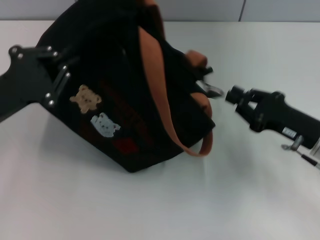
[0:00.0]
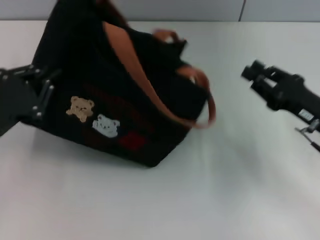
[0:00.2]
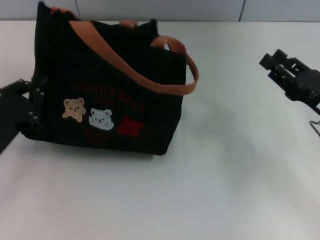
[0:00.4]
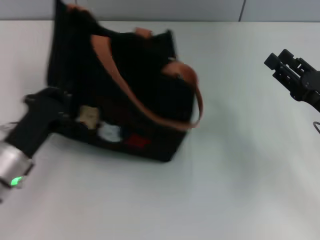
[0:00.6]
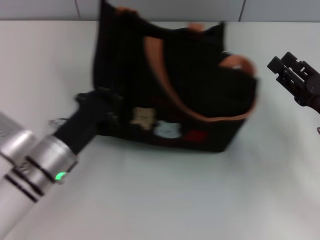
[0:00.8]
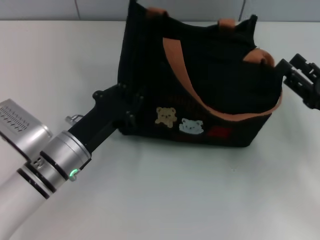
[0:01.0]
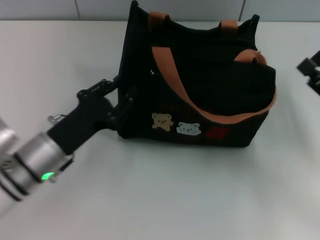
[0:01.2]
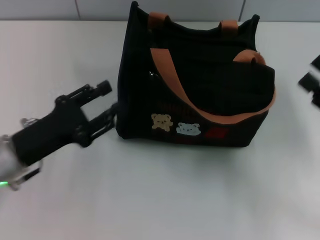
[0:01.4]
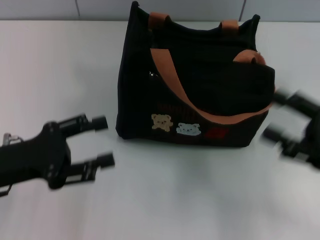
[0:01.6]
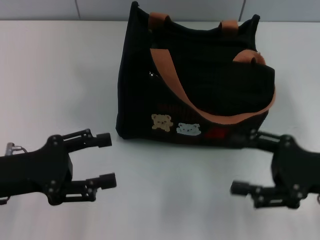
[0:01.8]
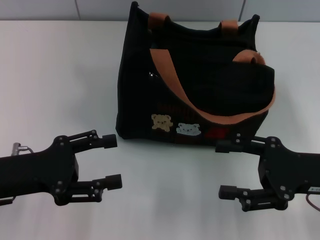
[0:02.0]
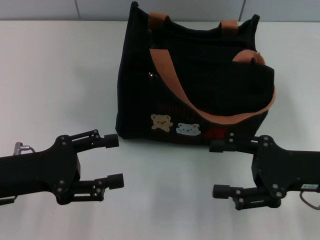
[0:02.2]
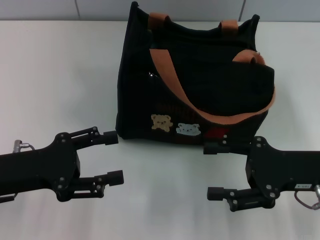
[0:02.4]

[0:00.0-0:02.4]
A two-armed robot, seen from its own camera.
Step, 0:00.2 to 0:01.2: Grab the bag with your left hand.
0:00.0 to 0:01.2: The right gripper heads to the right, covering roughly 5 cm, and opens up. The left gripper travels to the right and downward by approximately 10 cm.
0:01.2 to 0:02.4: The right gripper shifts some 5 cm to the left. The left gripper goes approximately 10 cm to the left and upward, and opens up.

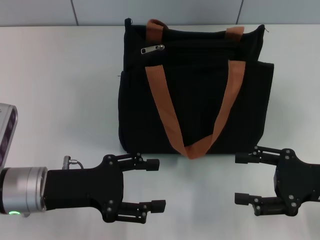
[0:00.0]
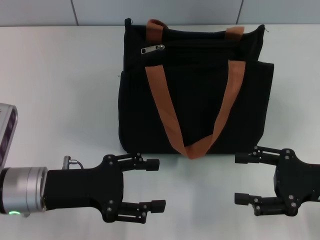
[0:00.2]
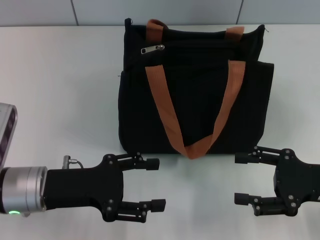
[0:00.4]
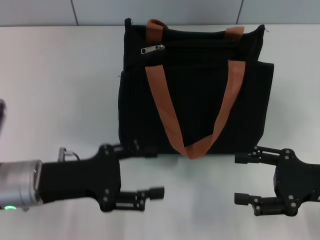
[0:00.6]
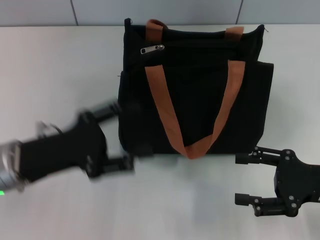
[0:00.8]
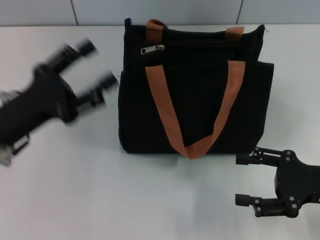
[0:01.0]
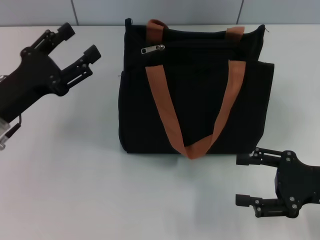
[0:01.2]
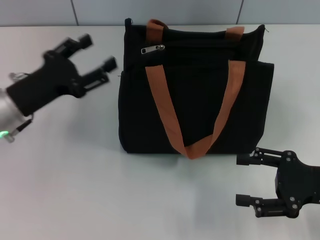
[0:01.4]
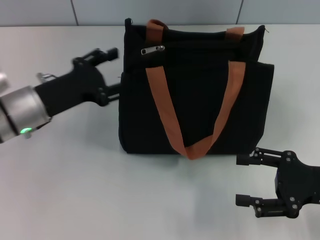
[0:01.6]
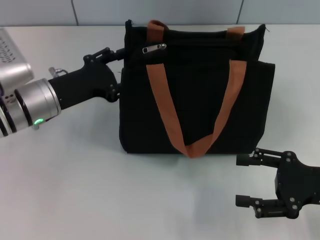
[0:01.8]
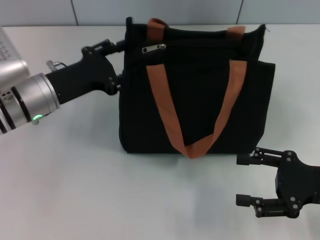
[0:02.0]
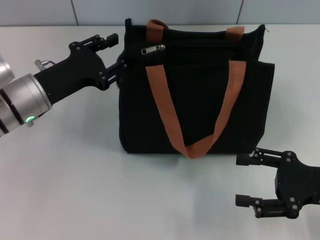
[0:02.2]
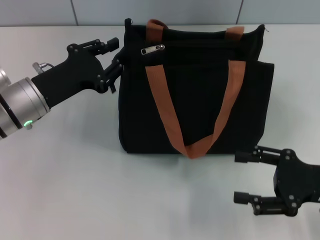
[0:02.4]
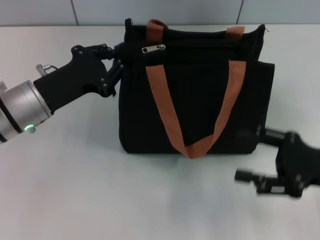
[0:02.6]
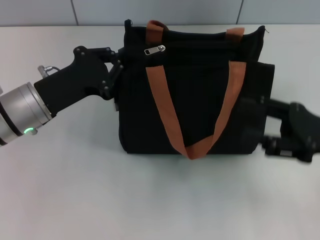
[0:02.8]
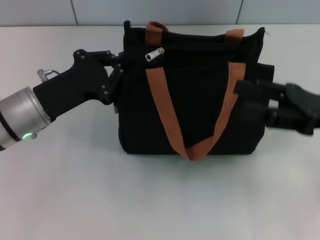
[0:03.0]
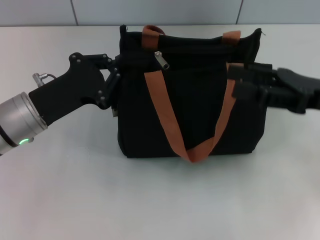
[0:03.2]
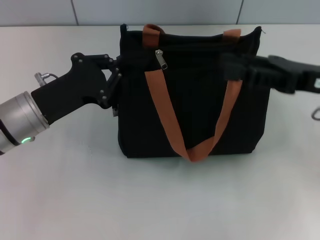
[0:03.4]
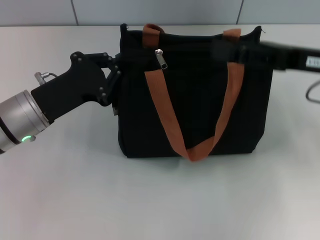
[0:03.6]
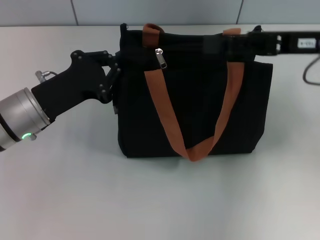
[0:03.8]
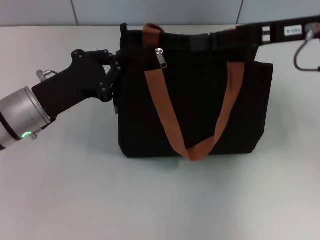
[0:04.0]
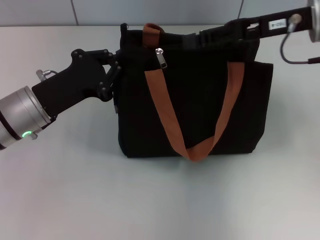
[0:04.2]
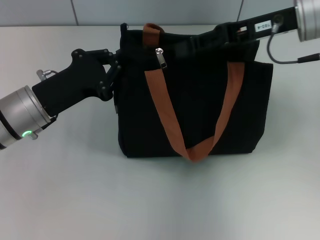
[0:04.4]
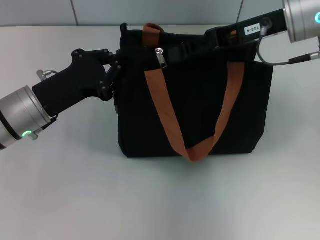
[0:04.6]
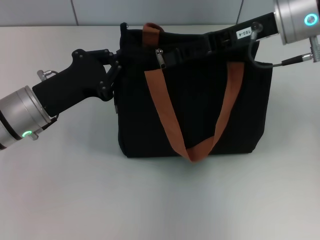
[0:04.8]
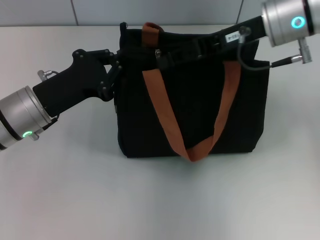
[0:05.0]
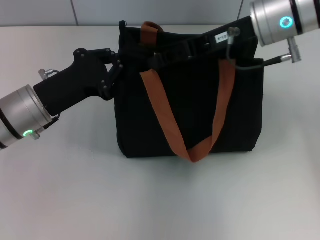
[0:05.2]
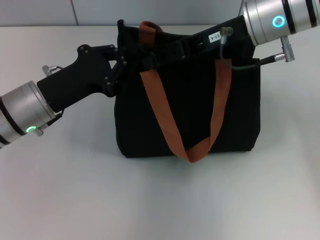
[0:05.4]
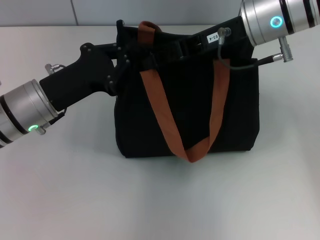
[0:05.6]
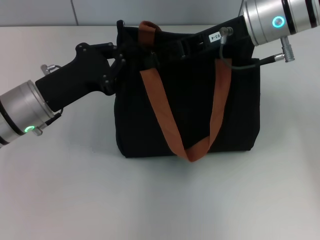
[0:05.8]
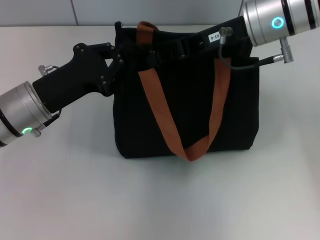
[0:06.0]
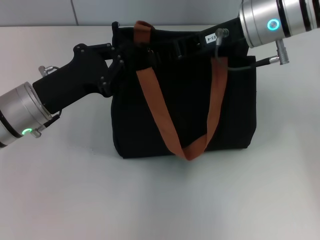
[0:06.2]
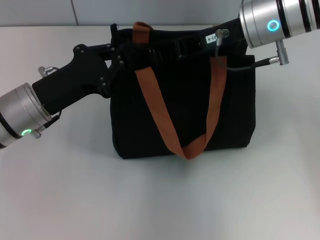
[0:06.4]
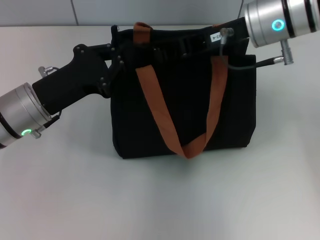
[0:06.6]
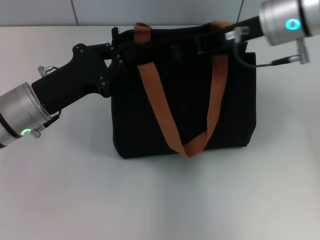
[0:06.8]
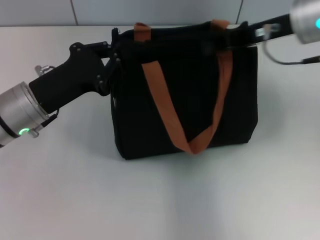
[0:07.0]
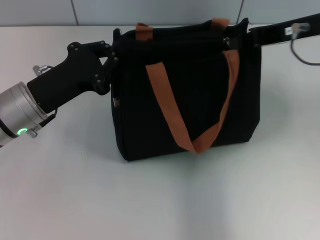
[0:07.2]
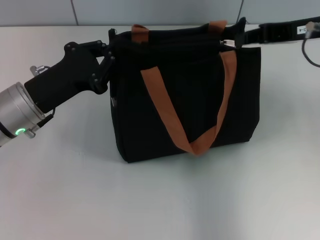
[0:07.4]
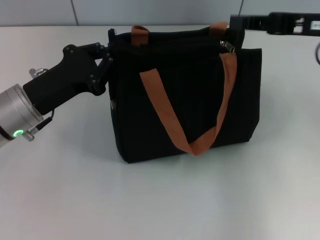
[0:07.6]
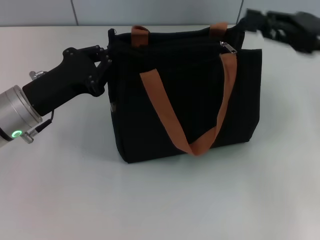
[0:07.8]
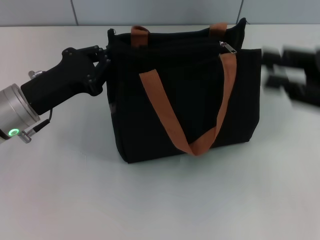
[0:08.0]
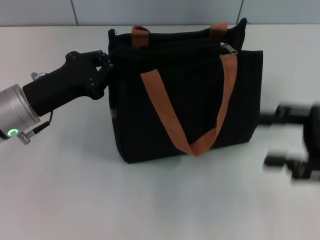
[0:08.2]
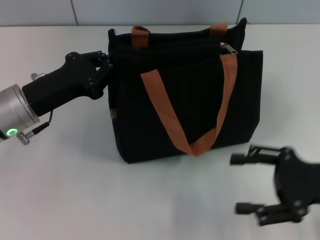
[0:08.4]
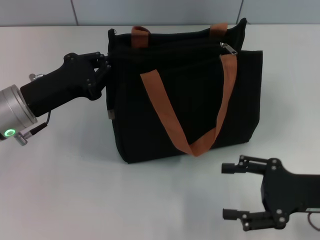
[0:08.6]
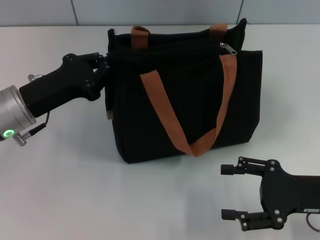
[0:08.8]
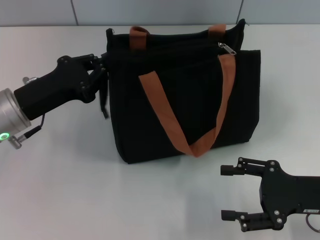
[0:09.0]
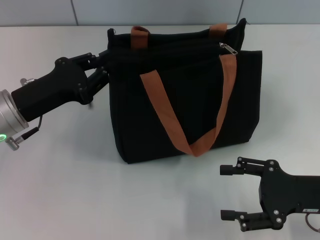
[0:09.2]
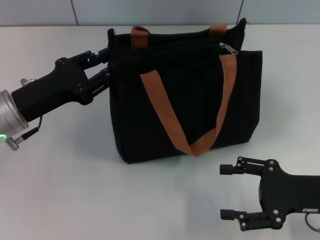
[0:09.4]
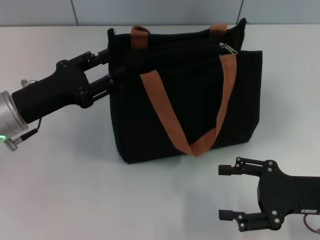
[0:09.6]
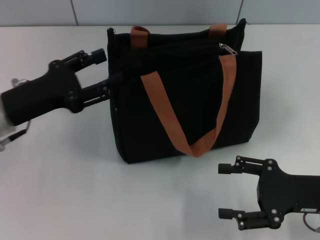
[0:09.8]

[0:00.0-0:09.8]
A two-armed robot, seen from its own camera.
Step, 0:00.0 to 0:07.6: Pull up the zipper with your right hand.
Step, 0:08.0 to 0:09.8: Grab the zipper with your left hand.
0:00.0 to 0:01.4: The left gripper shifts about 5 cm forward.
0:01.4 to 0:02.8: The left gripper closes. Meanwhile the right gripper changes place by approximately 5 cm.
0:02.8 to 0:04.2: The right gripper goes approximately 20 cm forward, upward and to the left.
0:04.2 to 0:05.6: The right gripper travels to the left by roughly 5 cm, and closes its fingers.
0:05.6 to 0:07.0: The right gripper heads to the right, covering about 5 cm, and closes up.
0:07.0 to 0:08.4: The right gripper is displaced backward, downward and to the right by about 20 cm, and opens its fingers.
0:08.4 to 0:09.8: The left gripper opens its fingers.

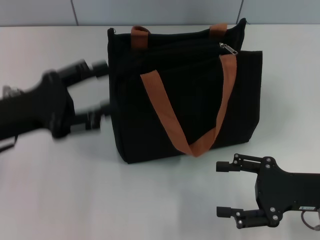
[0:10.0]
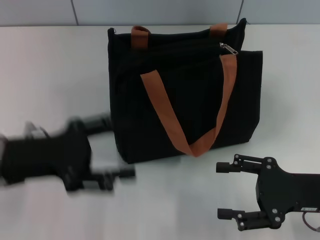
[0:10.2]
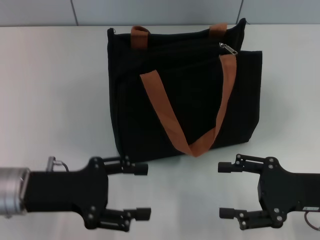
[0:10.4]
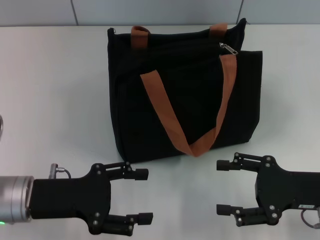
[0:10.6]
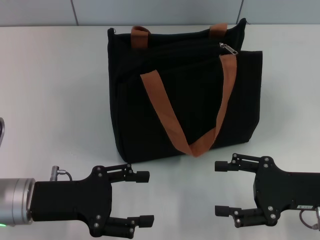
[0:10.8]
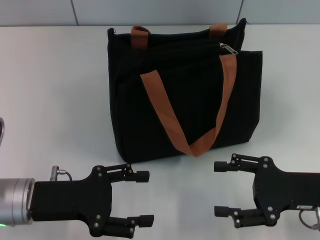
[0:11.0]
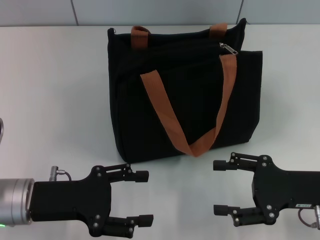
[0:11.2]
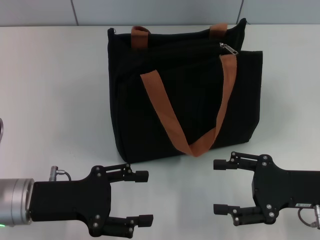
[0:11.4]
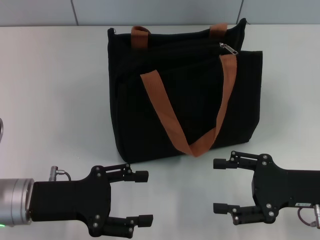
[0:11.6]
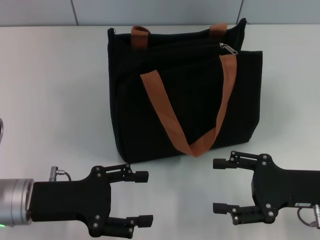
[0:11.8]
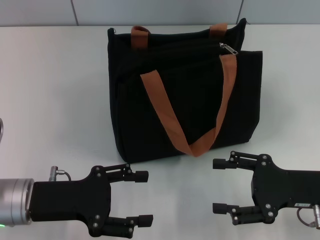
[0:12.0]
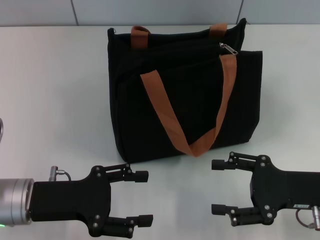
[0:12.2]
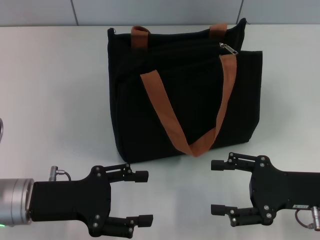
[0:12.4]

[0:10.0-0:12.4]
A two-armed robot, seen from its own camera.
0:10.0 to 0:11.2: The left gripper goes roughly 5 cm downward.
0:11.2 to 0:12.4: Neither gripper changes place.

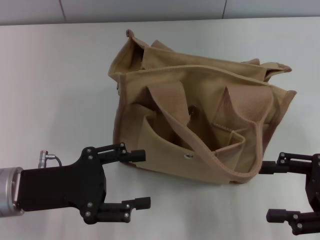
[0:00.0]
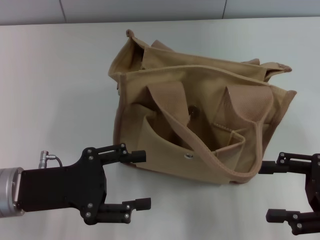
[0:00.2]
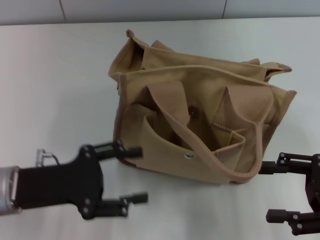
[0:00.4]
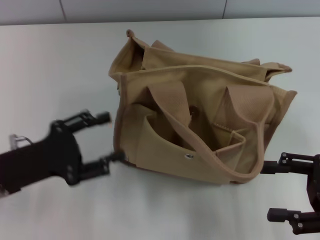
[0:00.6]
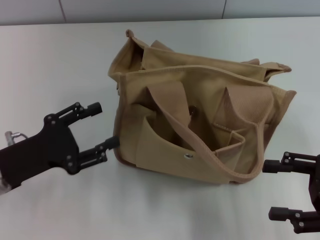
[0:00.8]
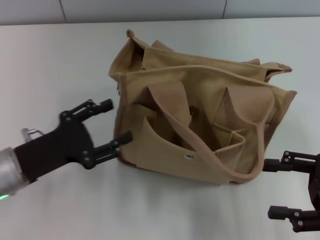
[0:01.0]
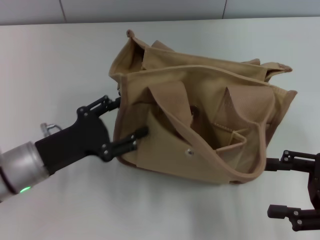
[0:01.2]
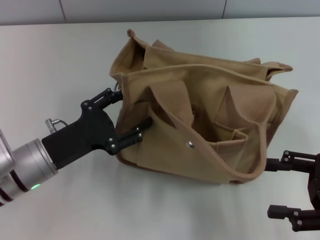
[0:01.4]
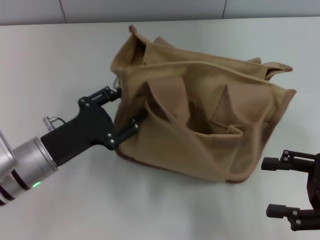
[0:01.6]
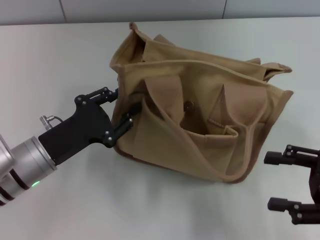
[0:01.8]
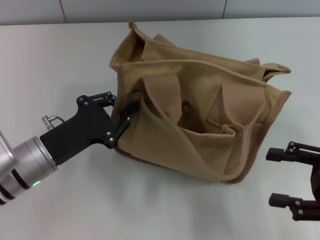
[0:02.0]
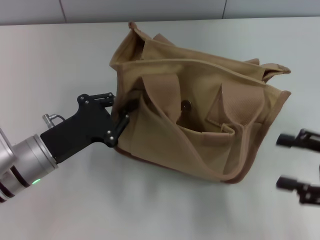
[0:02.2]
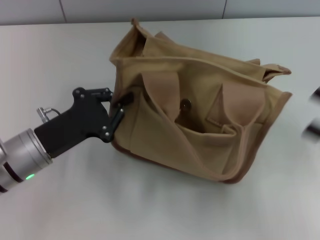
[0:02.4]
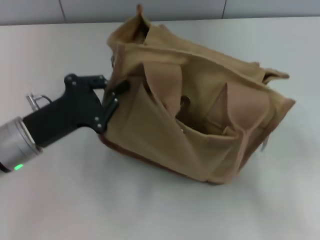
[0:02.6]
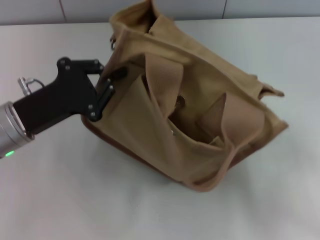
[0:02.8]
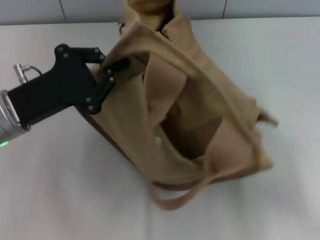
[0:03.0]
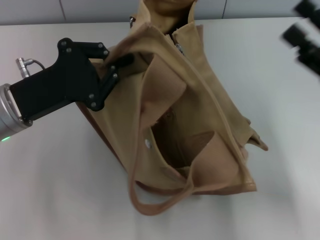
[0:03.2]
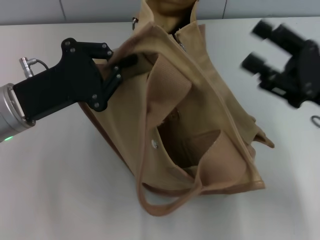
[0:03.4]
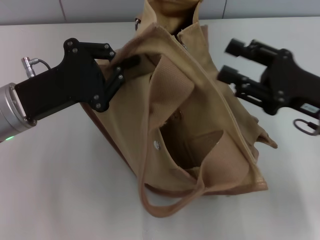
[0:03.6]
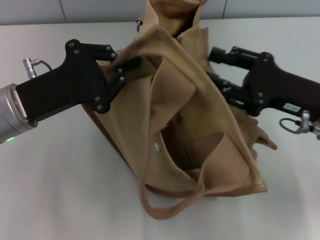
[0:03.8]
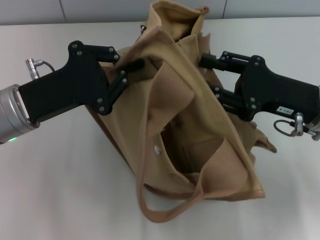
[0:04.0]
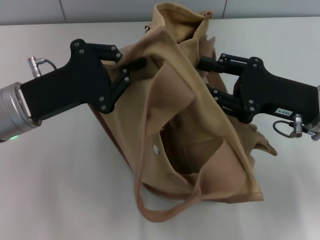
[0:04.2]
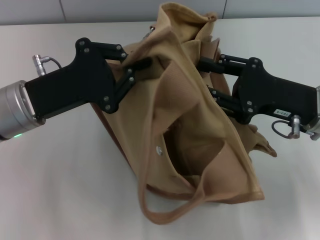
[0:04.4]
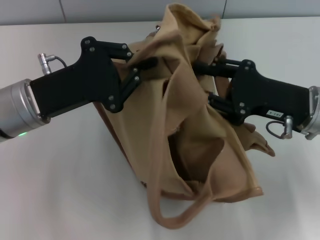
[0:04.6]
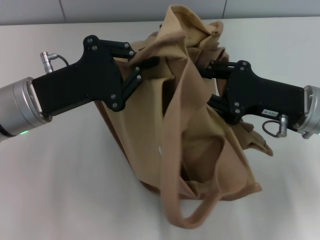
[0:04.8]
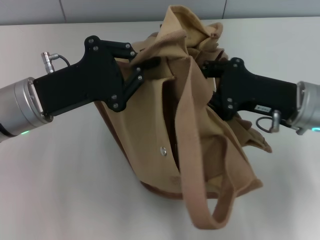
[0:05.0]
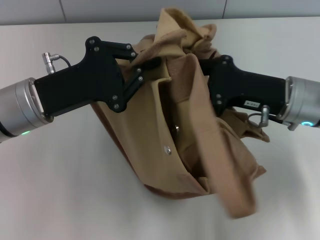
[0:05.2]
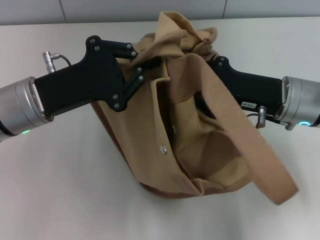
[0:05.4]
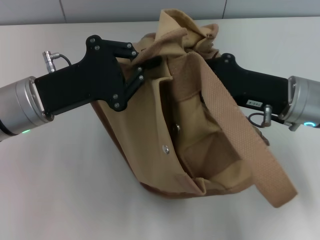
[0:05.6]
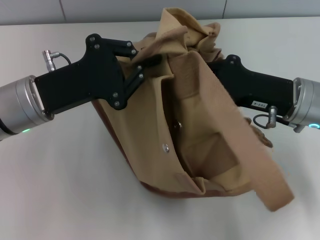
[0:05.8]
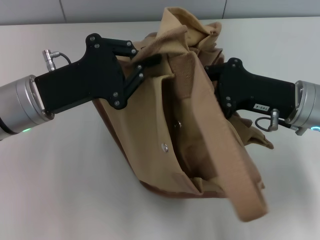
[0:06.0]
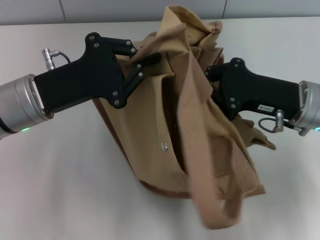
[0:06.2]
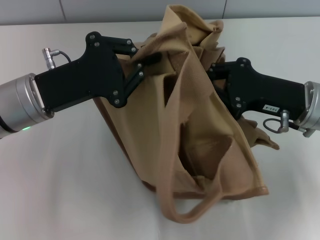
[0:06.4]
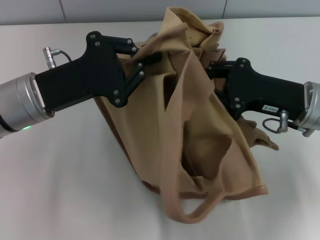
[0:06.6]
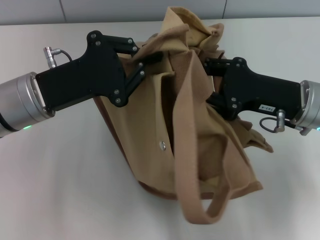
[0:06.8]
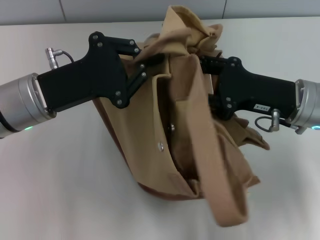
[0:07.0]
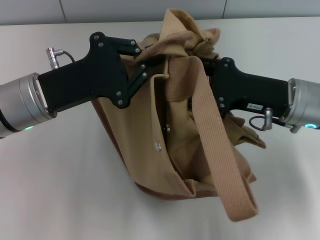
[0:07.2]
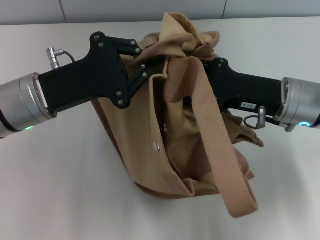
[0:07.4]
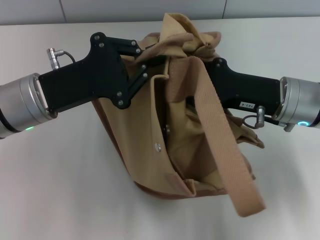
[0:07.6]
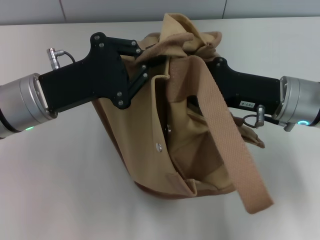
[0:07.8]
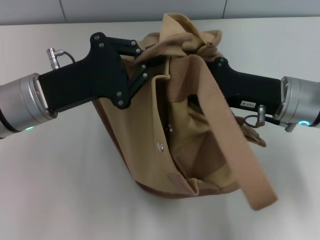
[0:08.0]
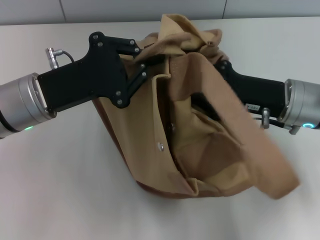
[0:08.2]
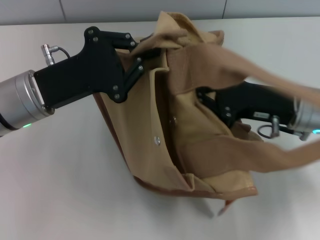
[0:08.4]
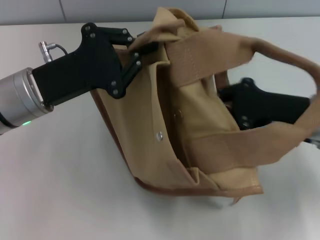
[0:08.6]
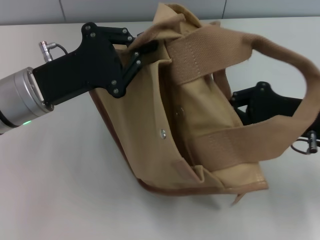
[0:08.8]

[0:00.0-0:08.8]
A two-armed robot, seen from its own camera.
0:00.0 to 0:01.4: The left gripper ends up about 5 cm from where it was.
0:01.4 to 0:03.0: The right gripper ends up about 5 cm from where it was, while the left gripper heads upward, covering roughly 5 cm, and closes its fingers.
0:03.0 to 0:04.4: The right gripper heads to the left, covering some 10 cm.
0:04.4 to 0:05.8: The right gripper closes up.
0:05.8 to 0:07.4: The right gripper opens its fingers.
0:07.4 to 0:08.8: The right gripper travels to the right by about 5 cm, and closes up.
